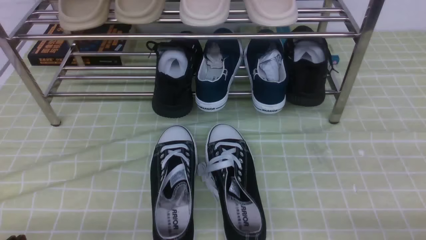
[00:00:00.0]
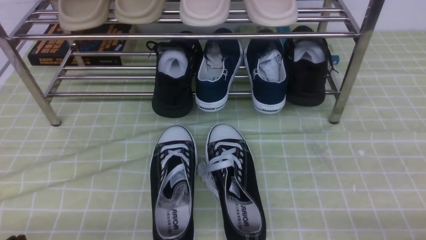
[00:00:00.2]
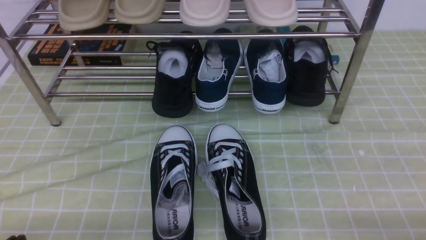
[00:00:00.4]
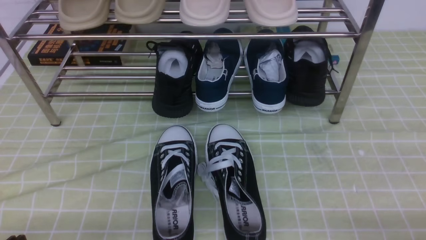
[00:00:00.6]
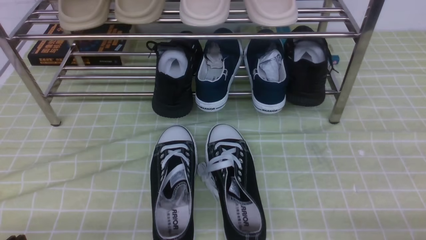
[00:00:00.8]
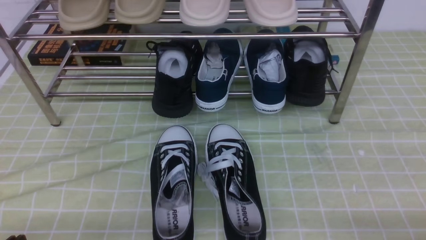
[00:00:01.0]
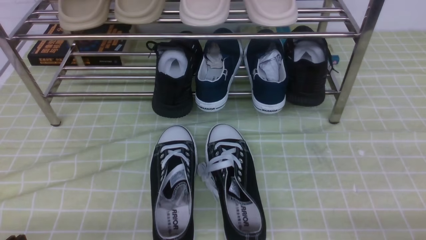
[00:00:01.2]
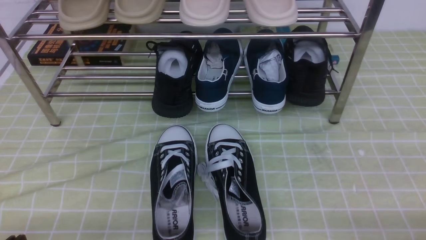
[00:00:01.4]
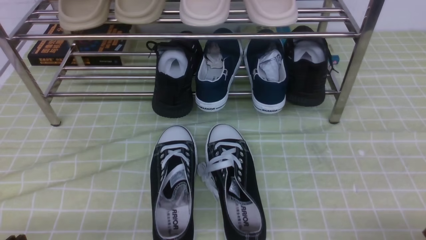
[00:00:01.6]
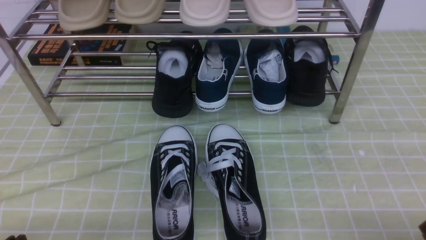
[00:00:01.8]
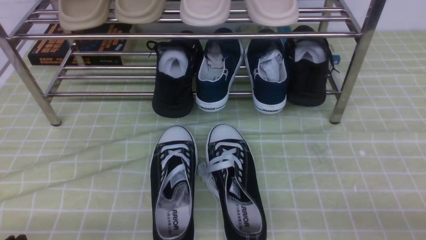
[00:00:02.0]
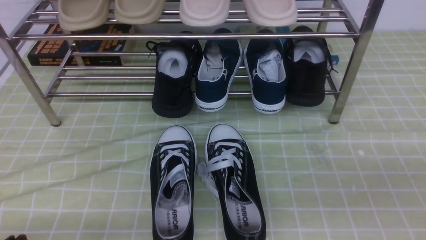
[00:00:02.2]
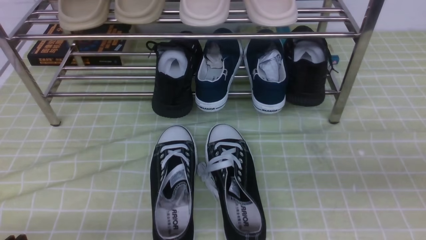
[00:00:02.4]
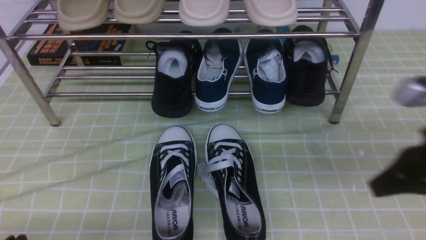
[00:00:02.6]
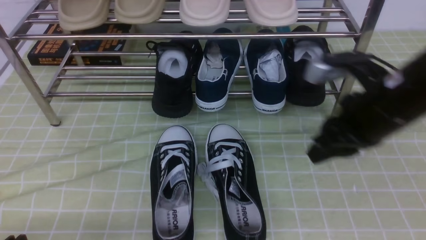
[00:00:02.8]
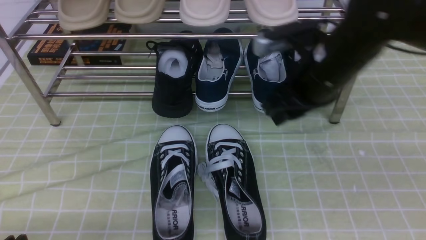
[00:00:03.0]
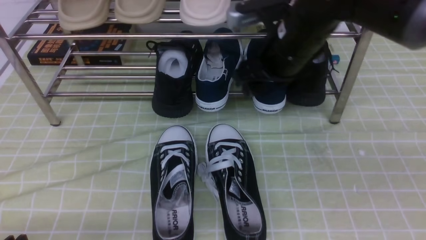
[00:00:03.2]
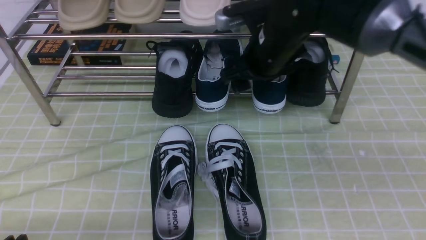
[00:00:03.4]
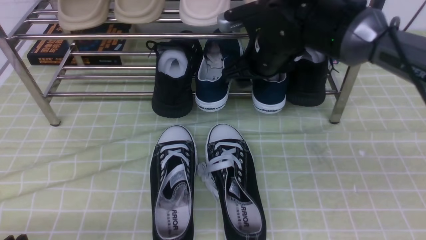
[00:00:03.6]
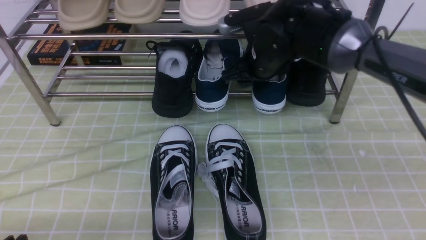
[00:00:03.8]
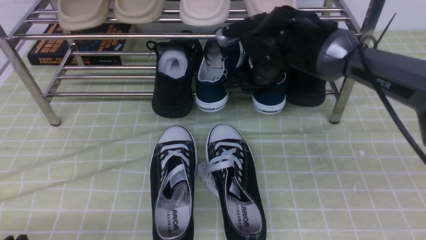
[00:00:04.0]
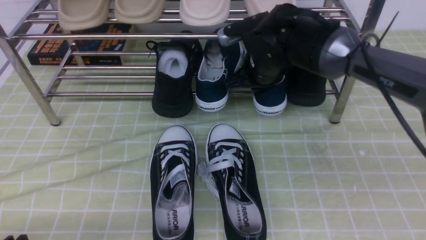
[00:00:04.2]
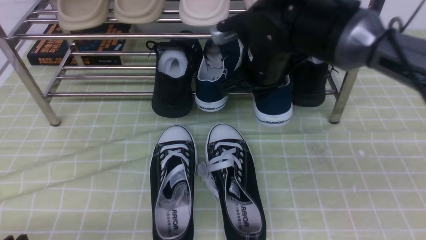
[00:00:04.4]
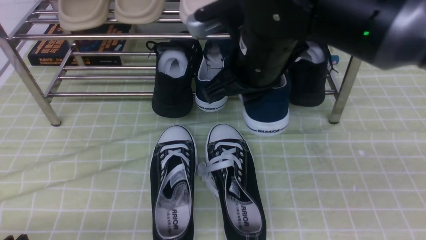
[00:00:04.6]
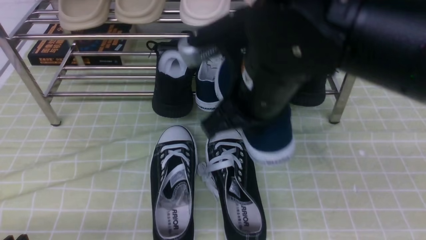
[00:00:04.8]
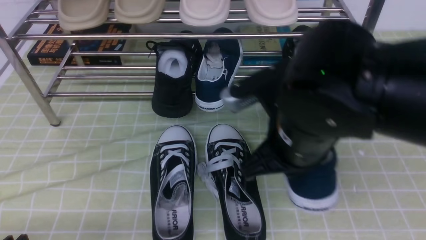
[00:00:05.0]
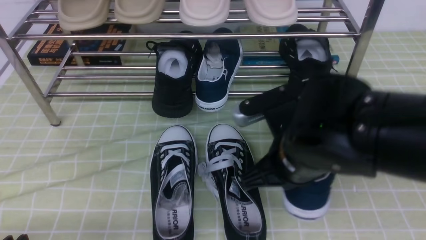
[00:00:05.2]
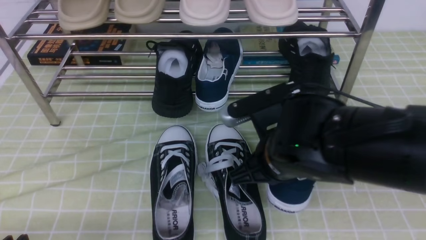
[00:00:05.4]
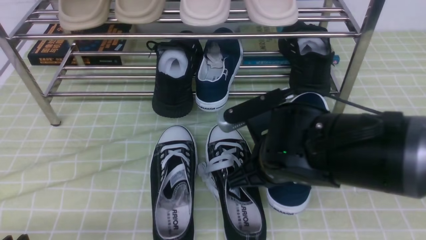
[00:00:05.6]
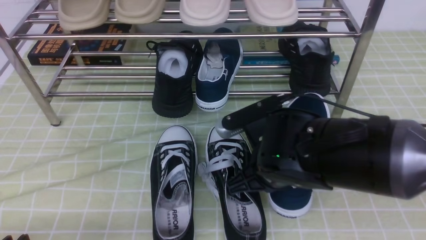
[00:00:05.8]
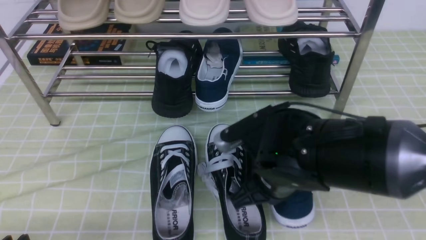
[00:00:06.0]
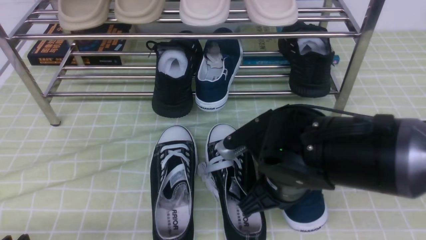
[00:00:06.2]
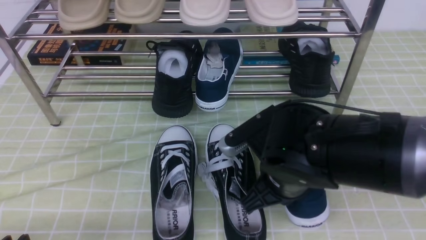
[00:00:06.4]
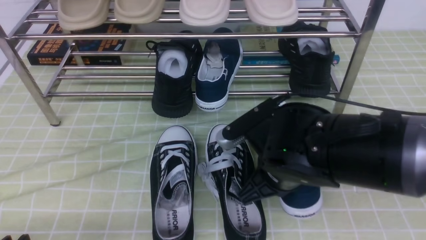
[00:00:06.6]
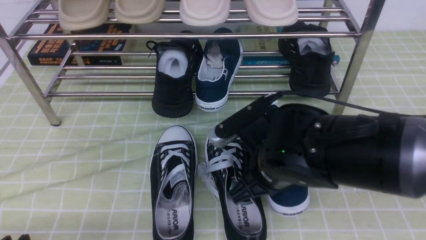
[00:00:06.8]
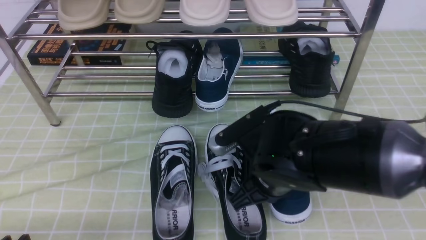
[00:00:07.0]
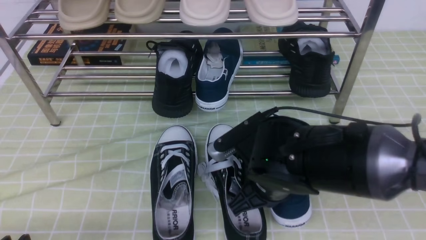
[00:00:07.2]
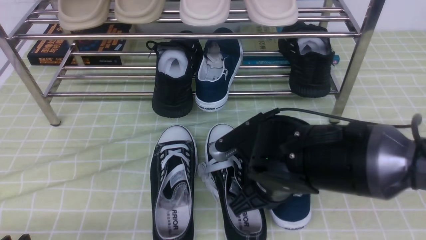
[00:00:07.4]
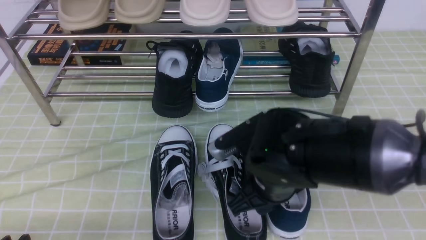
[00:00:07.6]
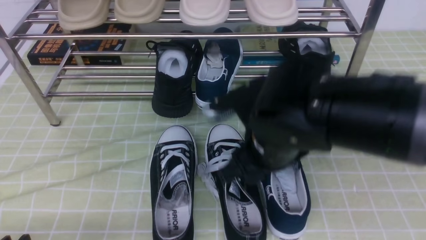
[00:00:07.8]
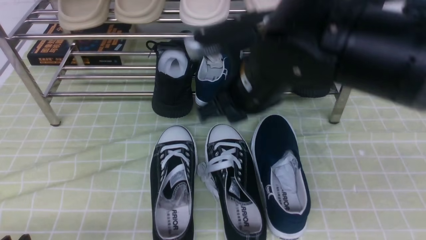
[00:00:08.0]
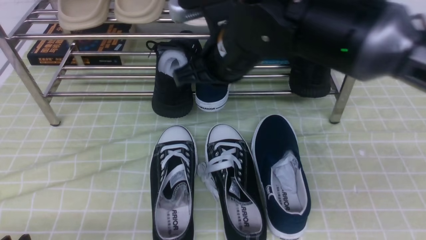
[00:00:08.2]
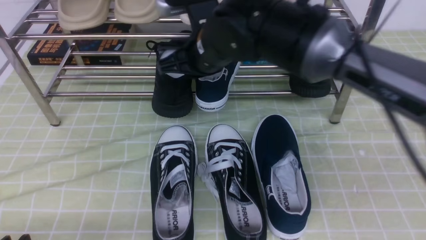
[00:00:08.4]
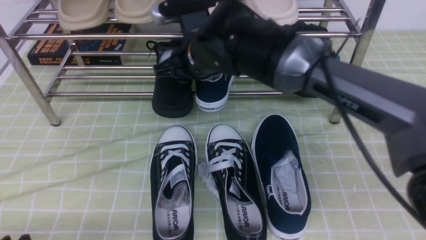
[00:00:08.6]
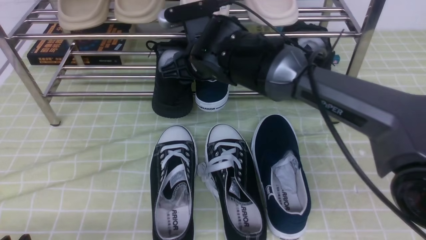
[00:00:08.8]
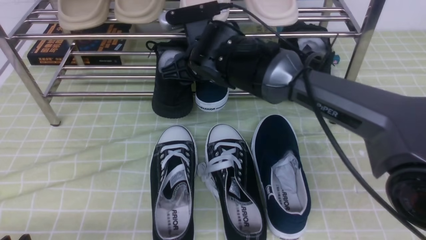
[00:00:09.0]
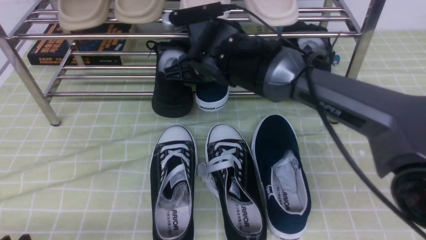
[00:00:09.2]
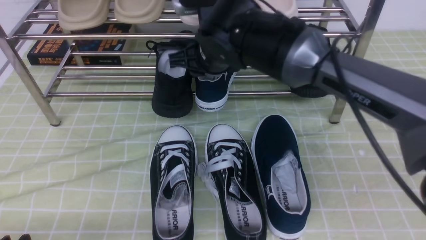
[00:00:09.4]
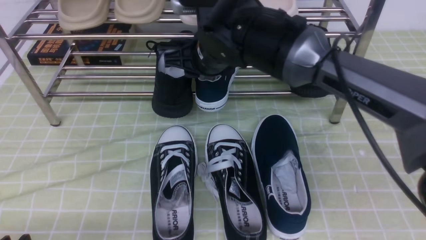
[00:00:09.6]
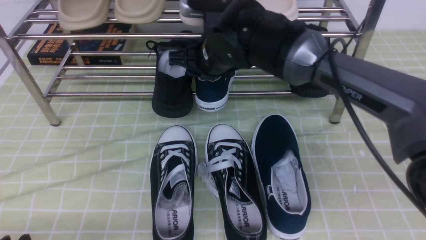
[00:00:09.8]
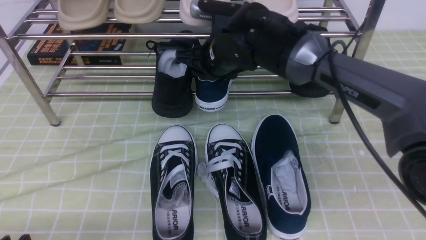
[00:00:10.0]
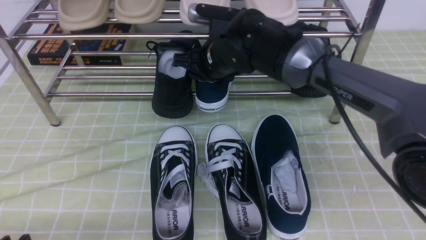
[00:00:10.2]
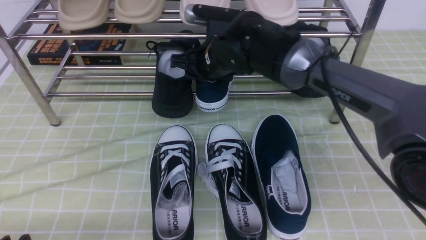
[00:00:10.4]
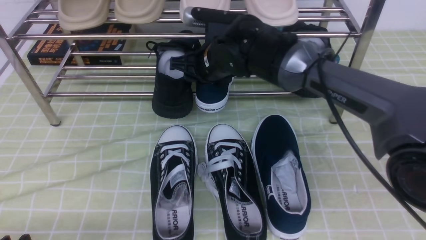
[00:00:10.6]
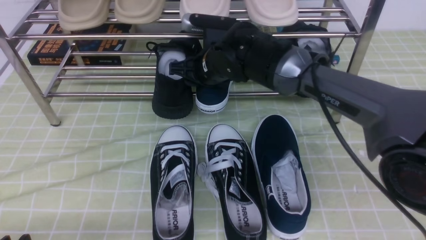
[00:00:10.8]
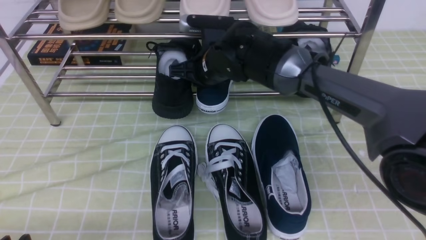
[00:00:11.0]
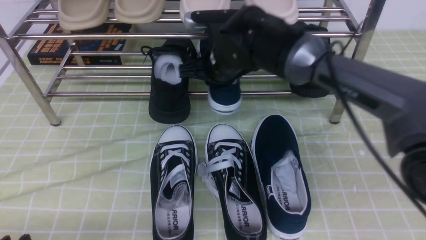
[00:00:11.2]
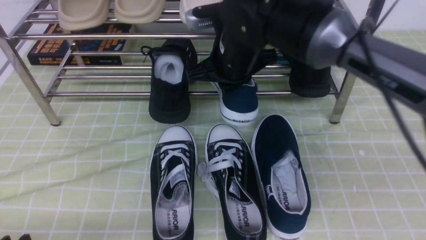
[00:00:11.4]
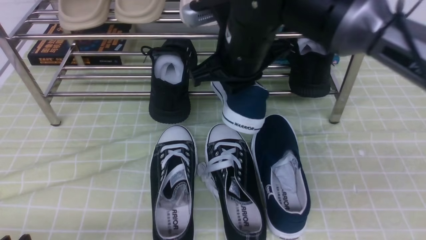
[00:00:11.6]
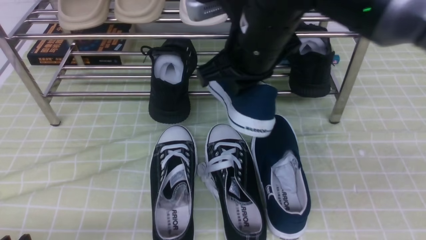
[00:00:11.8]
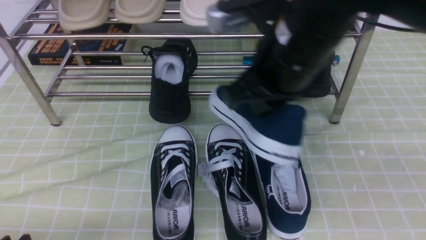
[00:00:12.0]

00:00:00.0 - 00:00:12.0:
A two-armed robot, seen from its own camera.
Step, 00:00:00.0 - 00:00:04.0: use the right arm to clamp a shoe on the right side of the shoe rack.
Step, 00:00:04.2 - 00:00:07.6: use the right arm to take out the clamped shoe from the shoe rack and put it down.
Step, 00:00:07.8 - 00:00:10.8: use the right arm to clamp a shoe on the right side of the shoe rack.
00:00:01.6 - 00:00:03.0: The right gripper is displaced forward, to the left and upward by some 35 cm, and closes and opens again.
00:00:03.0 - 00:00:04.4: The right gripper is displaced to the left by some 5 cm, moves about 10 cm forward and comes back, and closes.
00:00:04.4 - 00:00:06.0: The right gripper heads backward and downward, covering some 15 cm.
00:00:06.0 - 00:00:07.6: The right gripper opens its fingers.
00:00:07.6 - 00:00:09.0: The right gripper travels forward and to the left by some 20 cm, and closes, then opens again.
00:00:09.0 - 00:00:10.4: The grippers stay close to where they were, moving slightly.
00:00:10.4 - 00:00:12.0: The right gripper is displaced backward, upward and to the right by about 25 cm, and closes up.

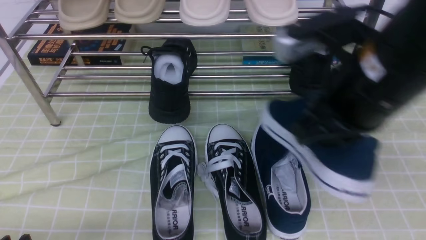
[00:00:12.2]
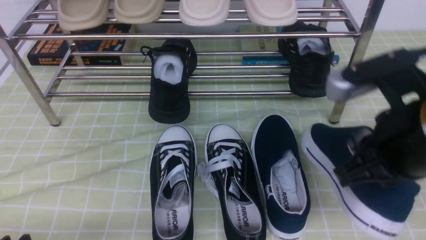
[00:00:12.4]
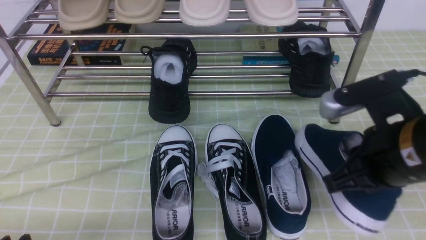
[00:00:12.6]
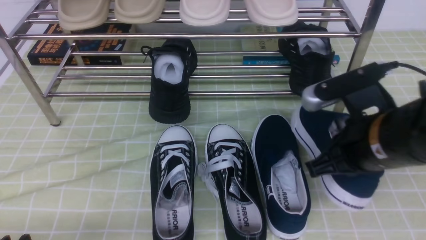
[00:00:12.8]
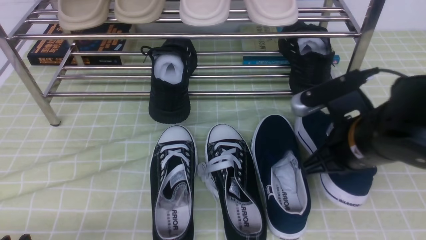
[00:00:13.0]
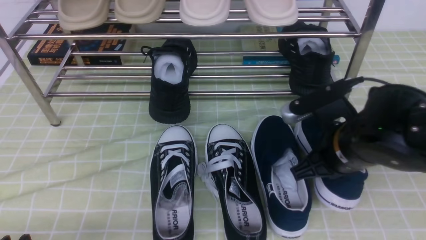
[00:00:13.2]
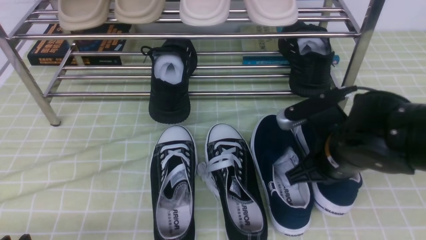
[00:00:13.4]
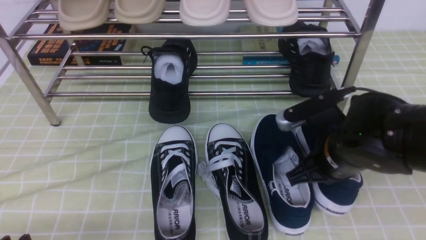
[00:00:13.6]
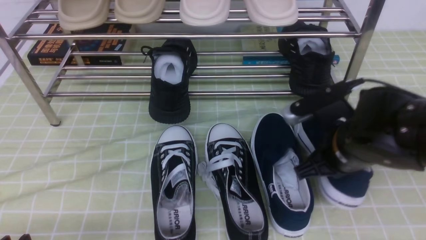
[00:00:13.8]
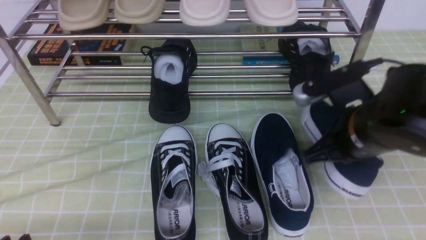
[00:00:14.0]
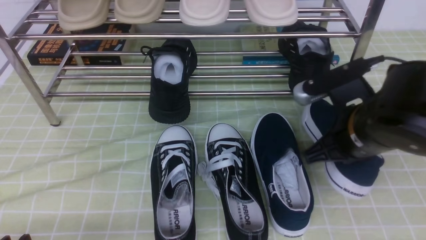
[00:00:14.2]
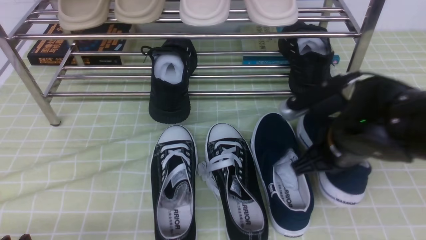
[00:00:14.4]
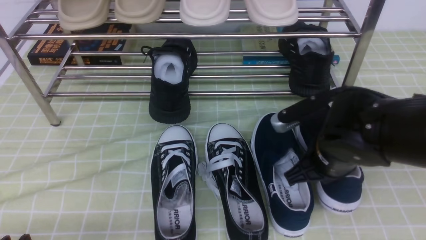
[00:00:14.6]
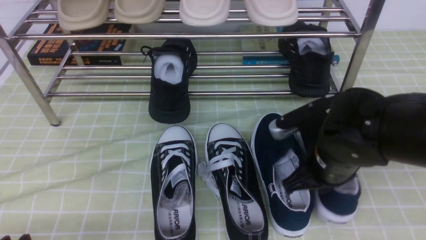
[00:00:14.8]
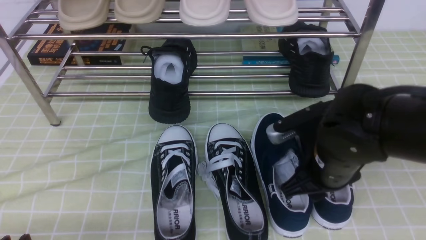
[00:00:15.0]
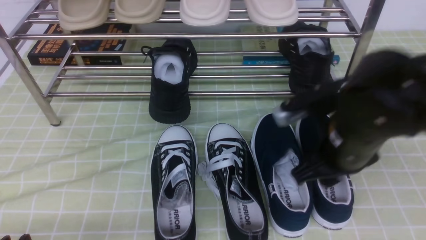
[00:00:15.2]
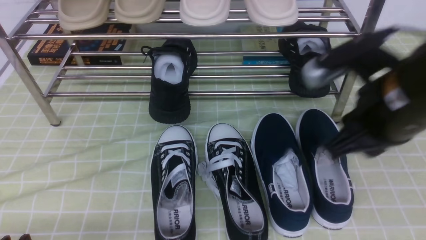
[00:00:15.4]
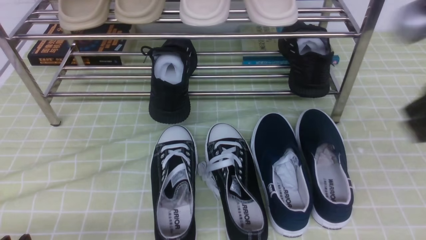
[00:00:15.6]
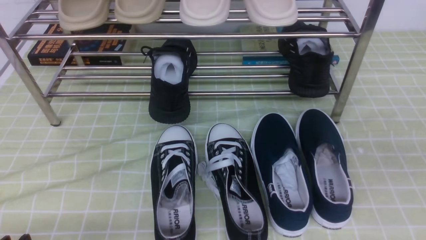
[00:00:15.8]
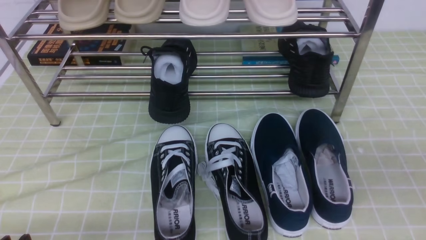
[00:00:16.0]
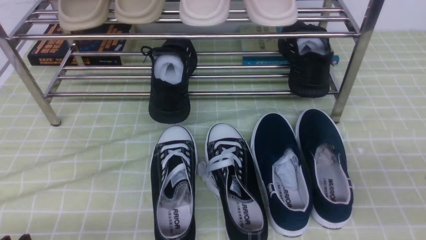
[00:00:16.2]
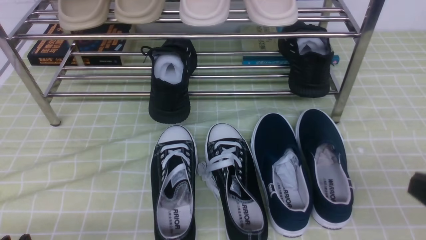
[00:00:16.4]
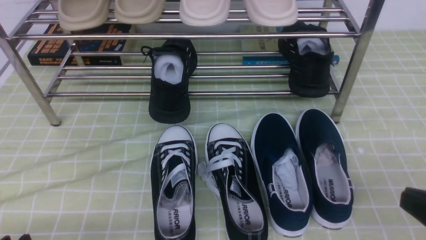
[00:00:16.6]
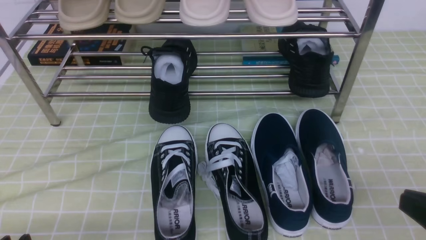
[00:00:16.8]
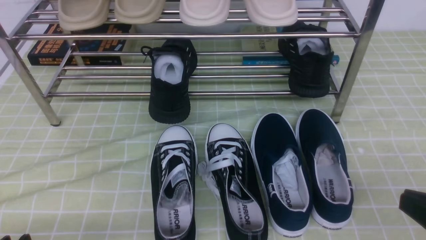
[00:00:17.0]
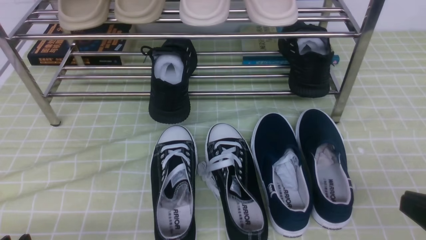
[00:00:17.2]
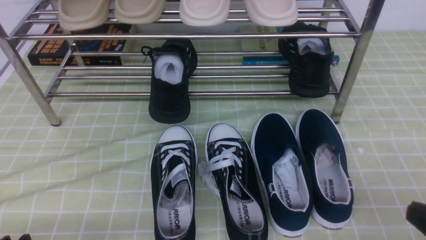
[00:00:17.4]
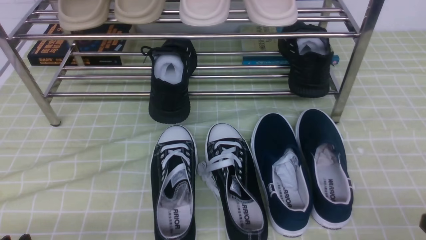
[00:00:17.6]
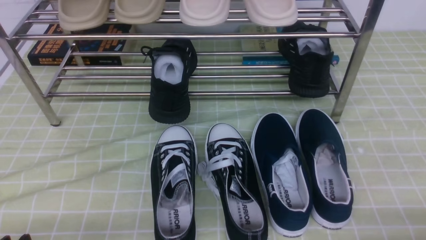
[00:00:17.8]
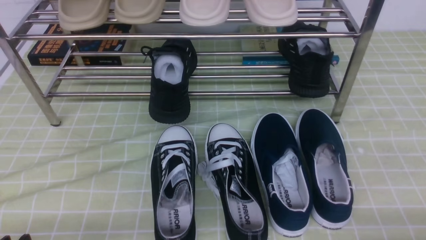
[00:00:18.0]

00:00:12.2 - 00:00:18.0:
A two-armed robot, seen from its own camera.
Step, 00:00:12.2 - 00:00:15.4: use the right arm to take out the clamped shoe from the shoe rack and put it down.
00:00:12.2 - 00:00:13.6: The right gripper heads downward, covering about 15 cm.
00:00:13.6 - 00:00:15.0: The right gripper opens its fingers.
00:00:15.0 - 00:00:16.6: The right gripper shifts about 20 cm backward and to the right, and closes.
00:00:16.6 - 00:00:18.0: The right gripper heads downward and to the right, covering some 10 cm.
